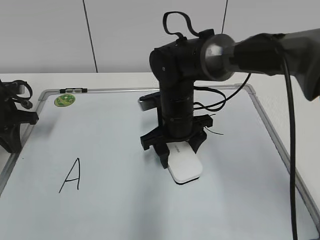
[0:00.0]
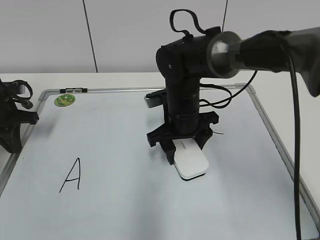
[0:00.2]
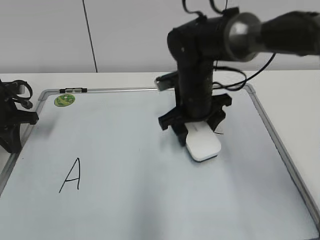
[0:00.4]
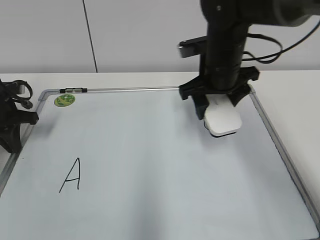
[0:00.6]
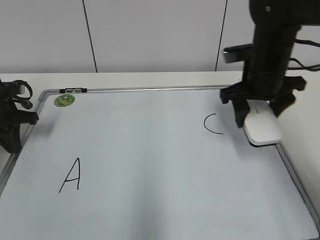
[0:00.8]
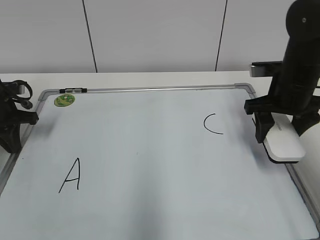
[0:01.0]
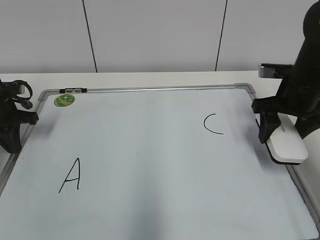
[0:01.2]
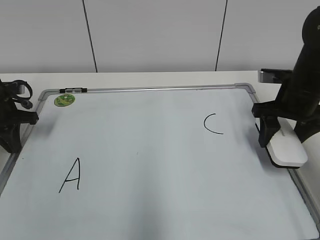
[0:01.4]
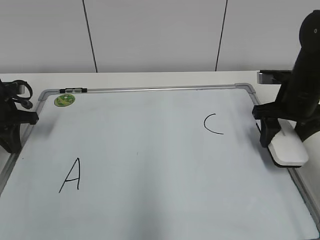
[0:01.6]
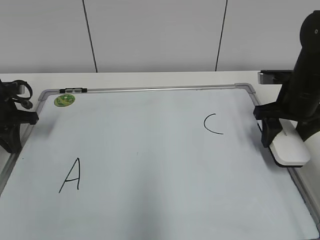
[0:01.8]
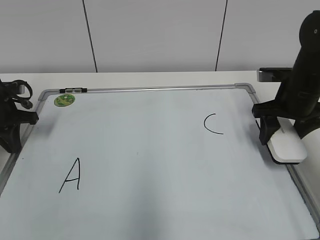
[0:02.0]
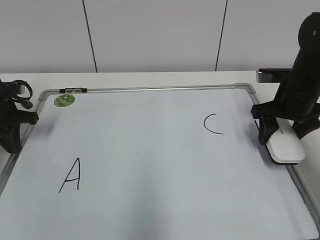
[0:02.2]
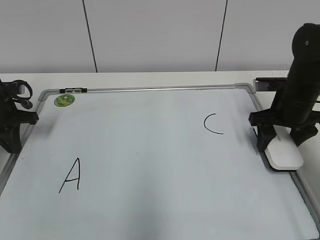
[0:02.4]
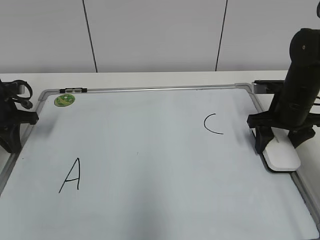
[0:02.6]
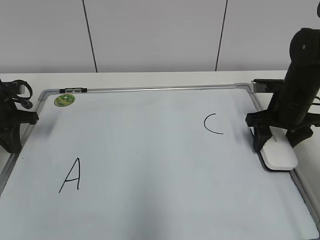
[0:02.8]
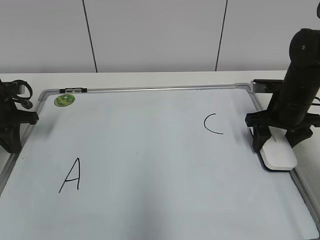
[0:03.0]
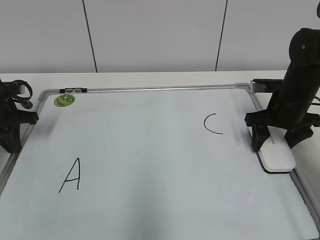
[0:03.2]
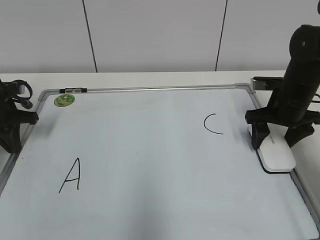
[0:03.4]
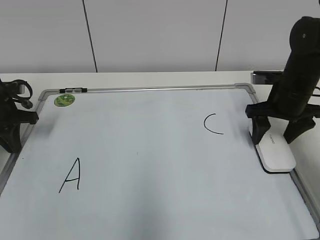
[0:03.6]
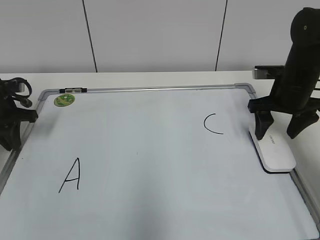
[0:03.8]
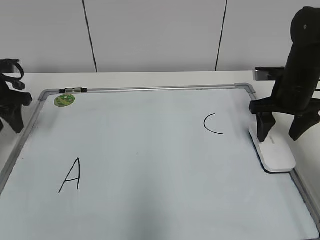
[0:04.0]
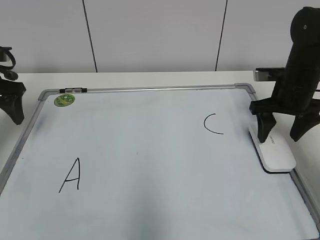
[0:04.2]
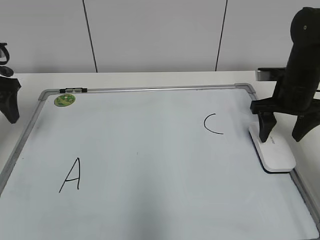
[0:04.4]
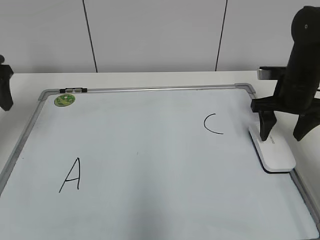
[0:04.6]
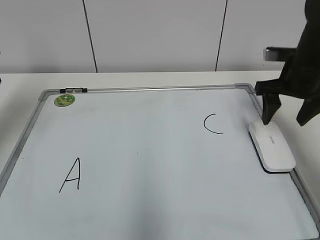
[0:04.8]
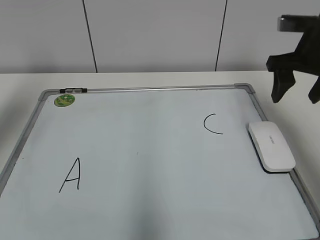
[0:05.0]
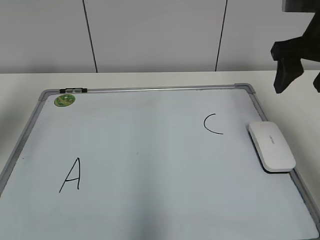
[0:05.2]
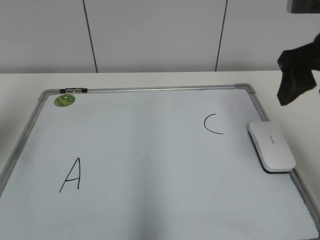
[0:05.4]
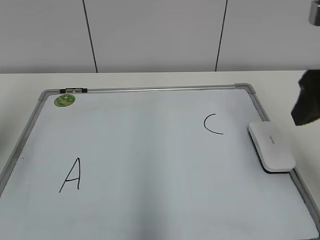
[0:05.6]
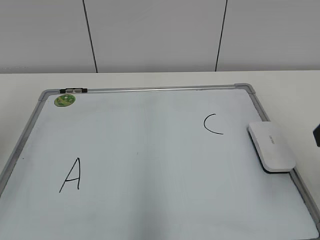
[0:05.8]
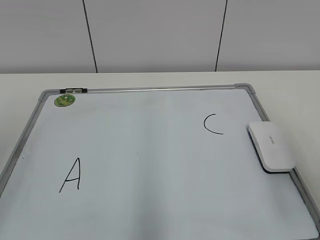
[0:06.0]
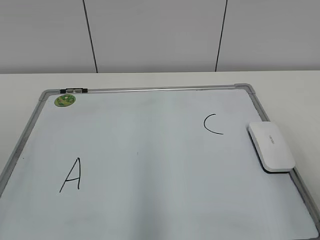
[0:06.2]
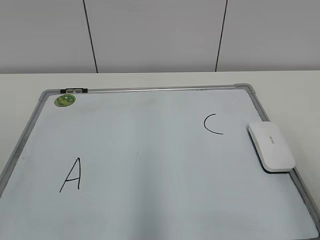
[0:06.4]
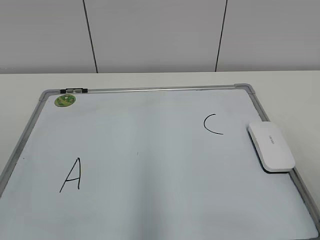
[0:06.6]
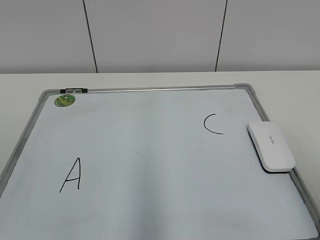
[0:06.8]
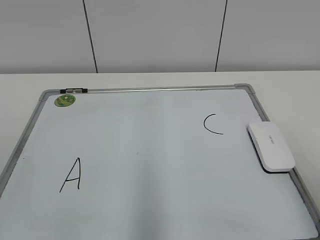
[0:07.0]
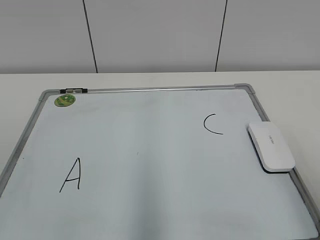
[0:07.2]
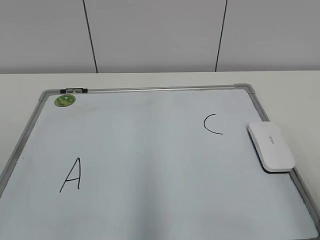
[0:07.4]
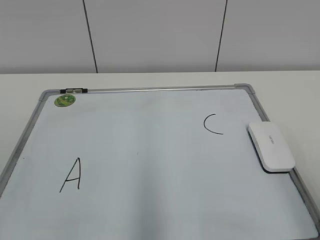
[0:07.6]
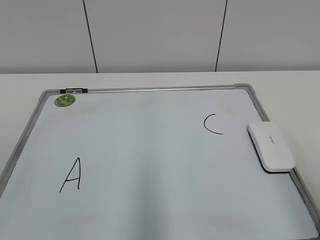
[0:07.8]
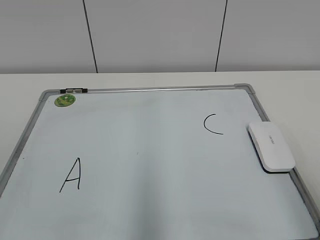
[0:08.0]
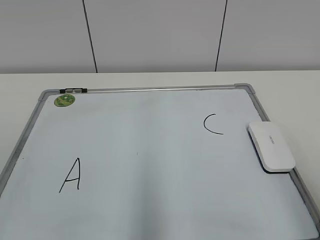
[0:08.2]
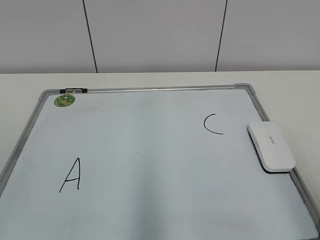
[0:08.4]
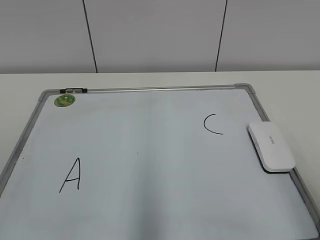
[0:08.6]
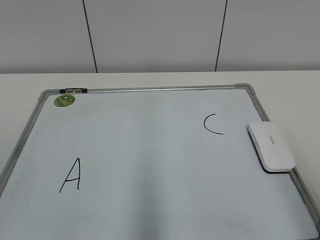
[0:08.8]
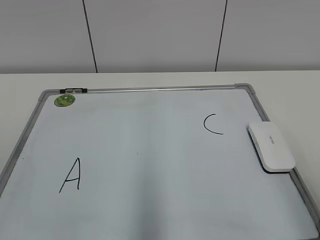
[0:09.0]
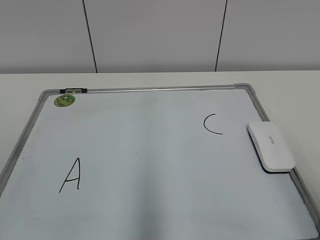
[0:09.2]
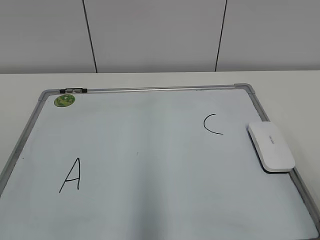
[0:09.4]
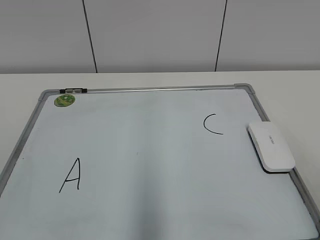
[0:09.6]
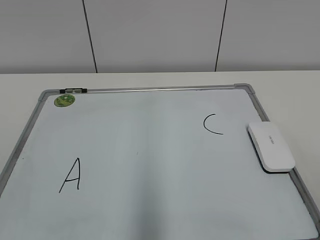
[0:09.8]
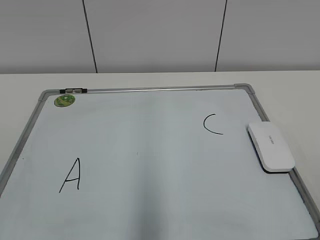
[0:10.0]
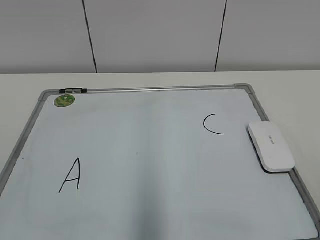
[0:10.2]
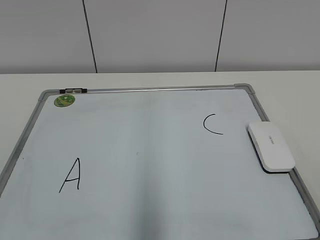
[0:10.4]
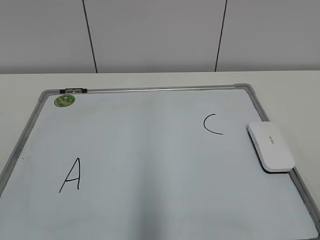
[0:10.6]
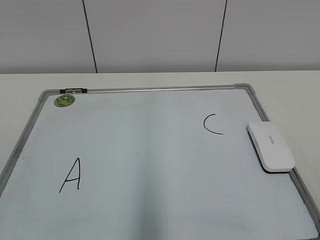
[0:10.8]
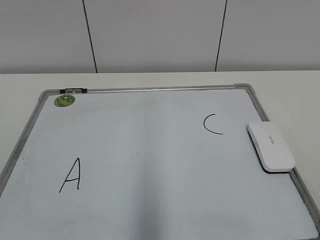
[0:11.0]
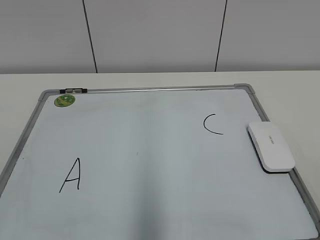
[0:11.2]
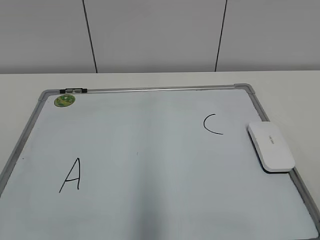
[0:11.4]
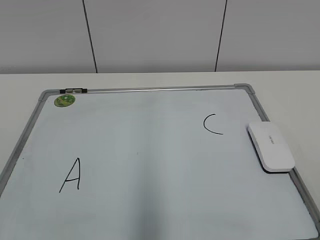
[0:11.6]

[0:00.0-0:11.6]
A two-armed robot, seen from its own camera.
Task of the whole recording: pick up the eraser on the blackboard and erase the letter "B".
Step, 0:00.4 to 0:03.4: Put down the eraser with your right hand.
0:00.0 to 0:01.4: The right gripper goes some 20 cm to the right.
0:01.4 to 0:02.8: The grippers move only a little.
0:02.8 to 0:04.4: The left gripper heads upward, covering roughly 10 cm, and opens its fingers, while the right gripper opens its fingers.
0:04.4 to 0:05.8: Both grippers move backward and upward, some 25 cm.
0:05.8 to 0:07.2: The right gripper shifts about 10 cm backward and downward.
0:07.2 to 0:08.8: The two grippers keep their place.
0:10.2 to 0:11.6: Both grippers stay put.

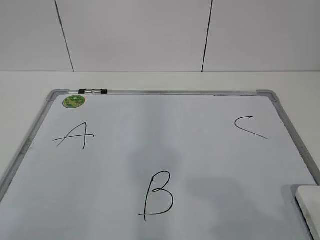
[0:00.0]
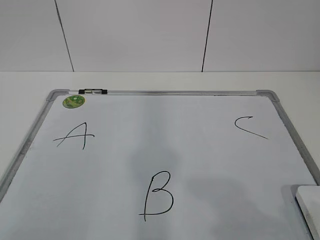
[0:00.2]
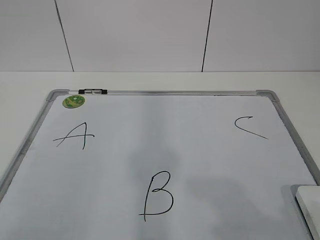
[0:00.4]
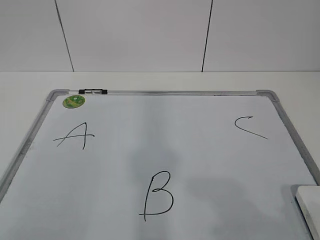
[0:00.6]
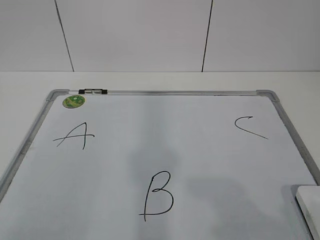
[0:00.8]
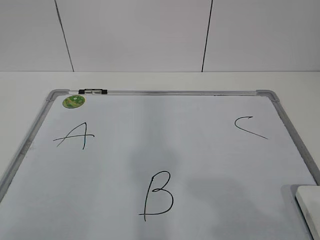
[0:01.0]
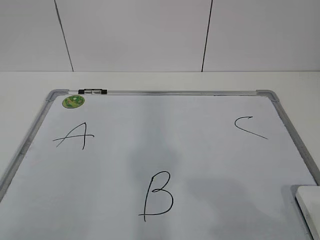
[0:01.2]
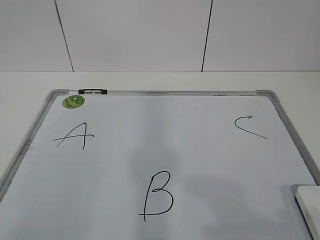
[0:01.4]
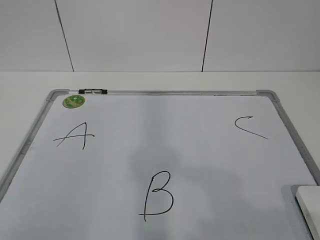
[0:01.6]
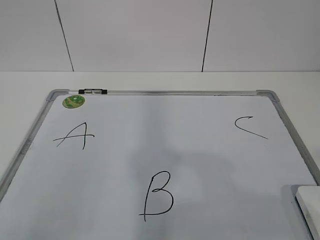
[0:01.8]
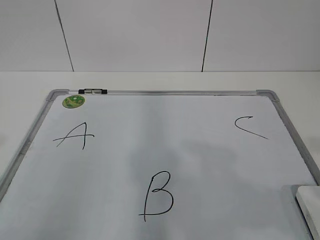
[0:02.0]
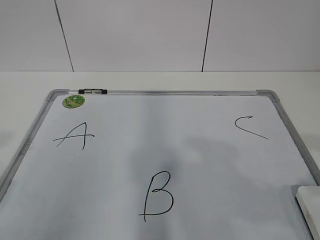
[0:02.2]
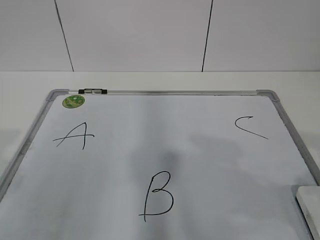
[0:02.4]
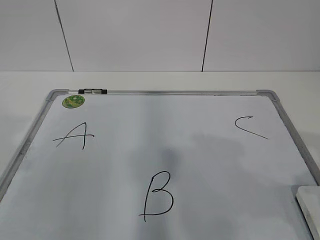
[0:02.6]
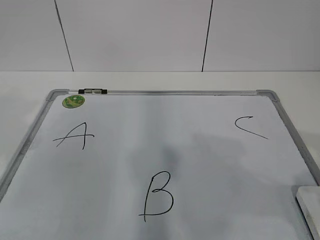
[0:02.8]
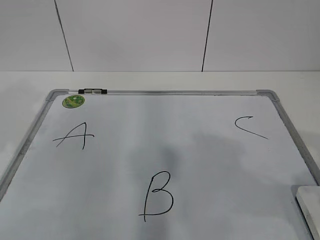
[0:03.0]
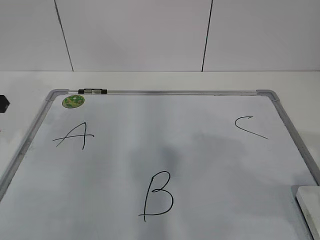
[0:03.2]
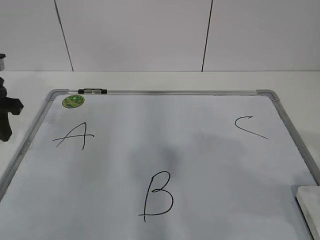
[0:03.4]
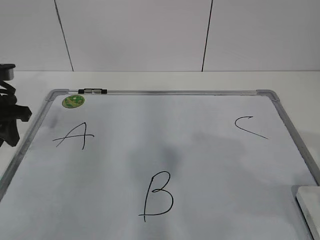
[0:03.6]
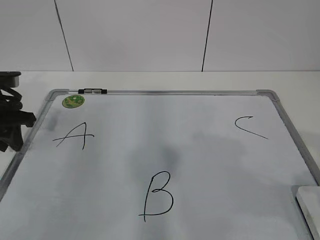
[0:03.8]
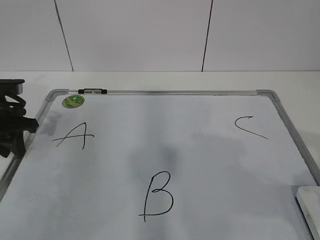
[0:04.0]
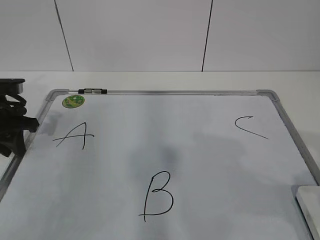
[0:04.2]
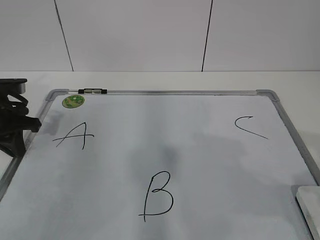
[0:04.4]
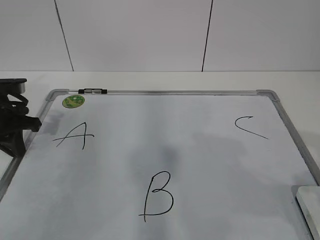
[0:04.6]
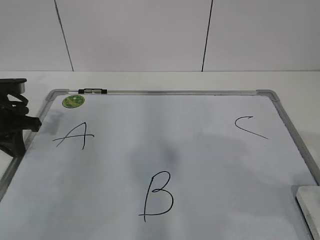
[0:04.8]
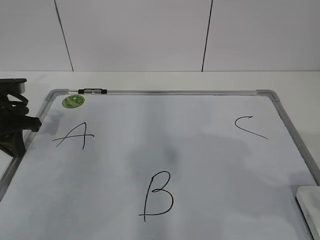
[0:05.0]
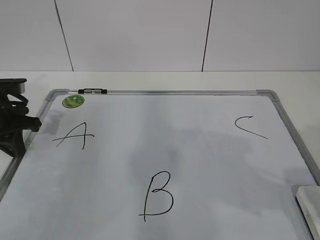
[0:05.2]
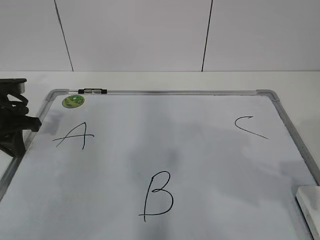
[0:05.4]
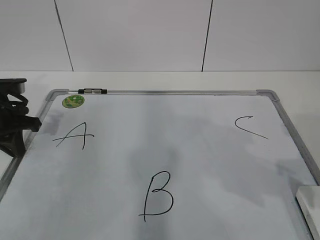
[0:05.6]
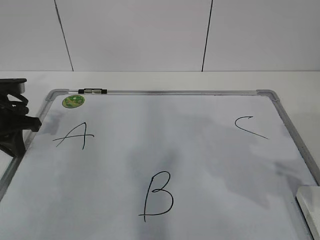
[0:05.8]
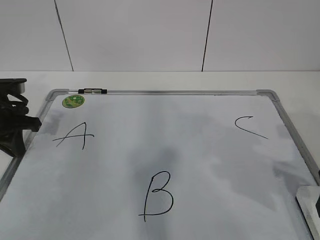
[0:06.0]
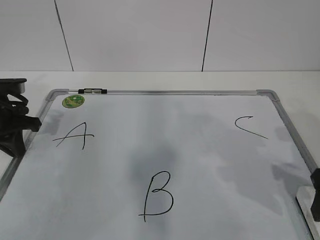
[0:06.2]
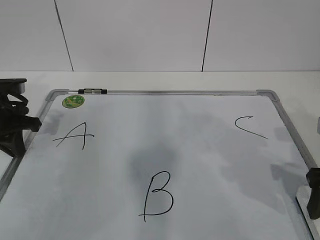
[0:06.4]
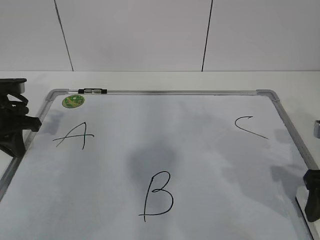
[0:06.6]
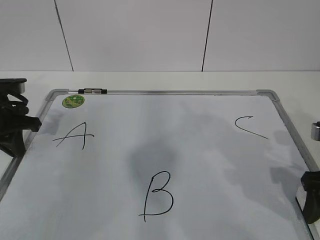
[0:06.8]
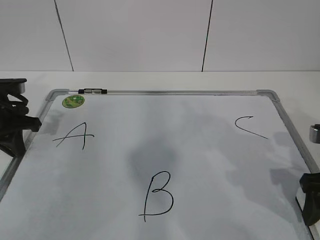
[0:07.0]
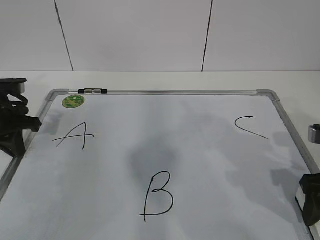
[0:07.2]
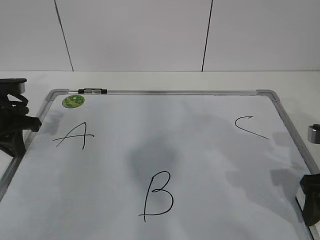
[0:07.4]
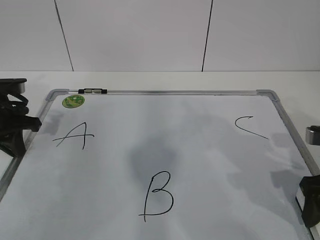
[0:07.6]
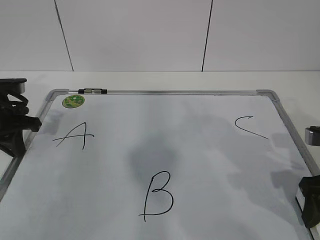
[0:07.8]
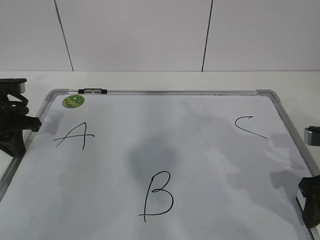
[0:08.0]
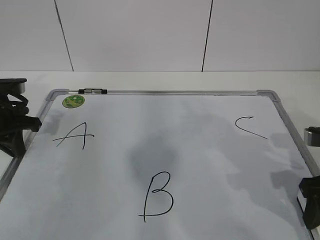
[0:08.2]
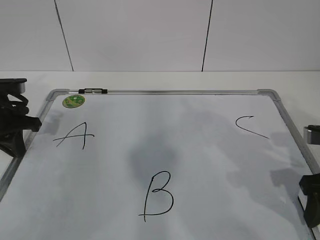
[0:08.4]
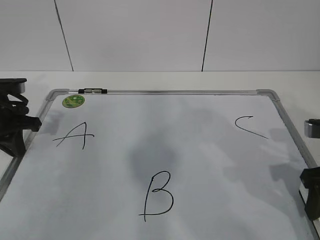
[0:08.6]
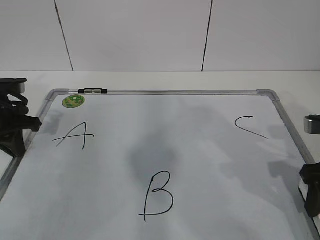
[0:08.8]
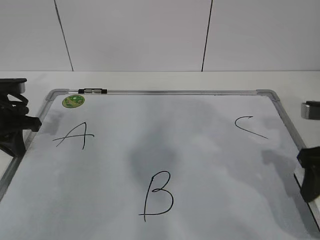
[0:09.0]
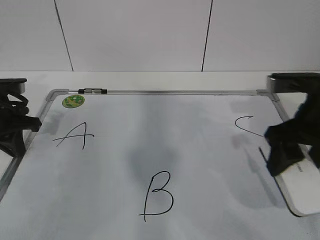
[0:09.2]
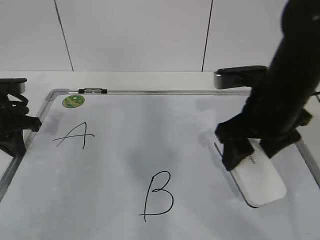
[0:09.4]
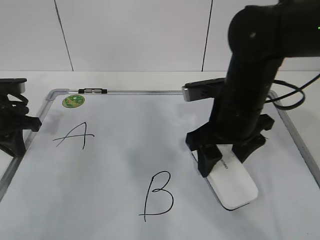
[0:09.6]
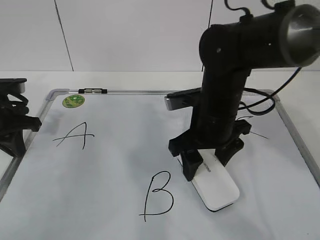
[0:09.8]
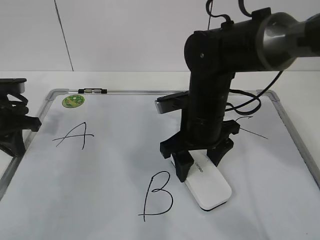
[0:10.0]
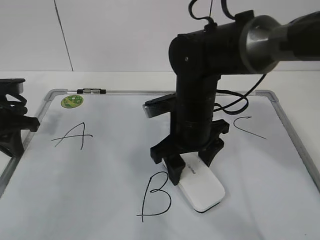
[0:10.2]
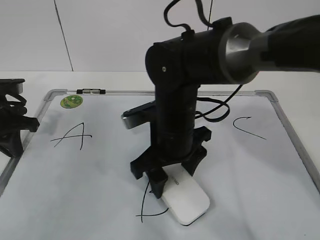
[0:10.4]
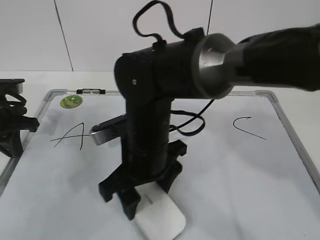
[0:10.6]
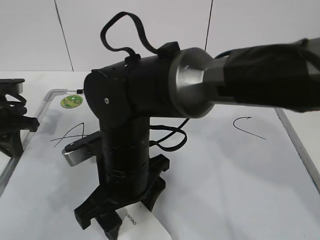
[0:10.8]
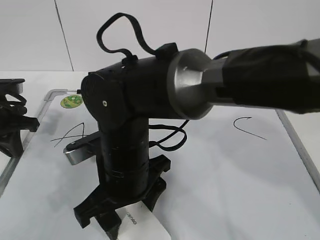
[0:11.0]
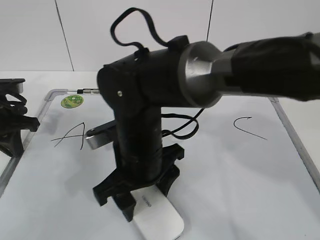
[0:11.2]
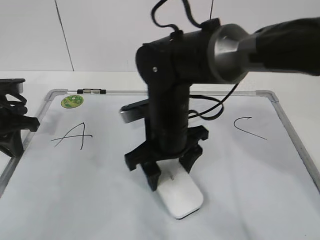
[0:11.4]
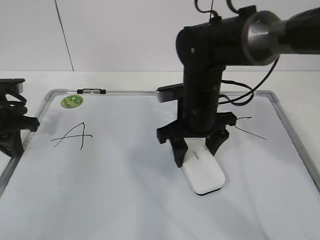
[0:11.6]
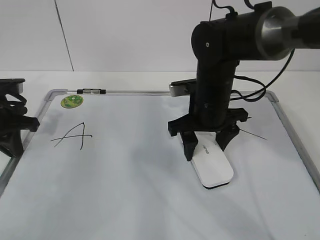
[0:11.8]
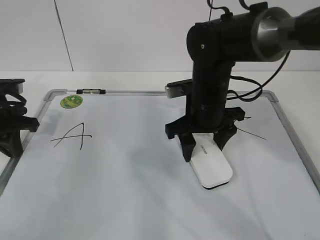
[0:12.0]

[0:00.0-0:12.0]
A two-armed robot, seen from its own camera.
Task of the whole recording: pick up the eraser on the blackboard and erase the letter "B".
Step, 0:00.0 to 0:03.6: Hold the drawing board steady with your left hand.
Step, 0:03.8 to 0:06.4: Grab the eraser with your right hand.
Step, 0:06.8 to 0:11.4: Erase the letter B with your right hand.
0:01.6 to 0:03.0: The right gripper travels forward by some 10 cm; the left gripper is displaced forward by some 25 cm.
0:03.0 to 0:04.4: The left gripper is displaced downward and forward by roughly 15 cm, and closes up.
0:06.0 to 0:07.6: The right gripper moves about 5 cm.
0:07.6 to 0:09.0: The right gripper closes up.
0:09.0 to 0:10.4: The right gripper goes approximately 25 cm to the left.
0:10.4 to 0:12.0: The right gripper goes some 10 cm to the right and forward.
